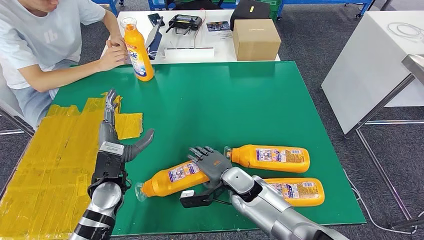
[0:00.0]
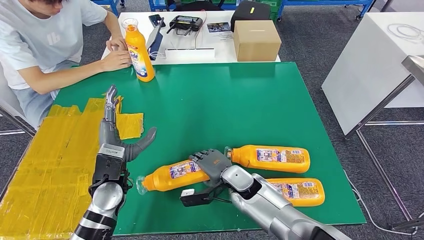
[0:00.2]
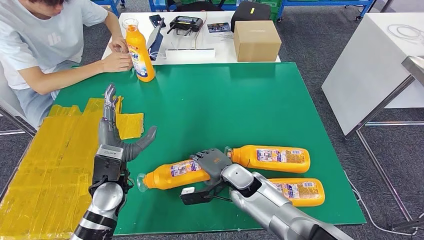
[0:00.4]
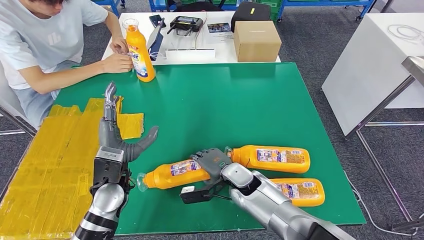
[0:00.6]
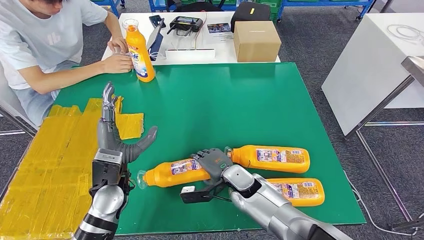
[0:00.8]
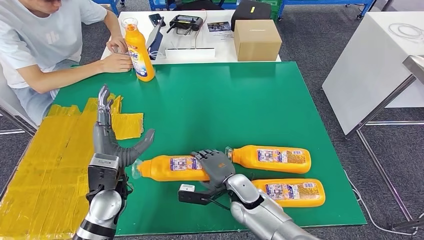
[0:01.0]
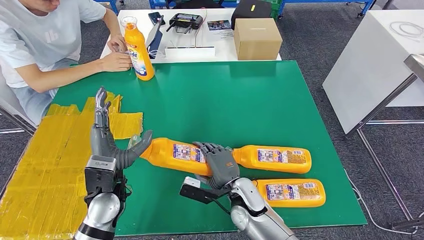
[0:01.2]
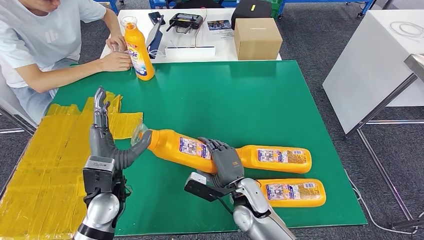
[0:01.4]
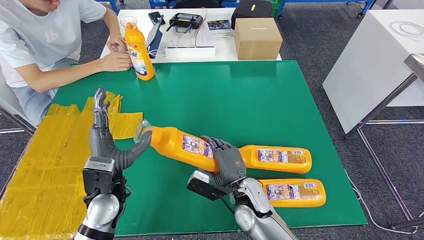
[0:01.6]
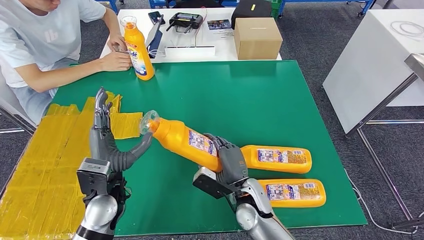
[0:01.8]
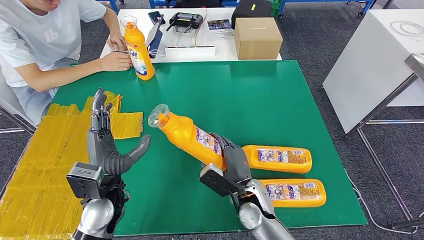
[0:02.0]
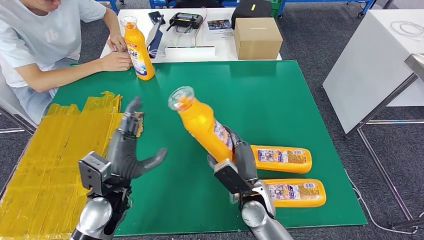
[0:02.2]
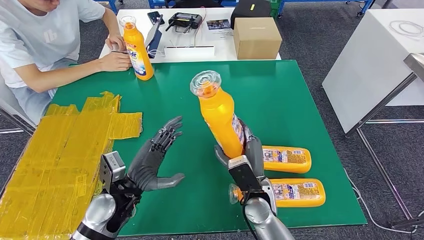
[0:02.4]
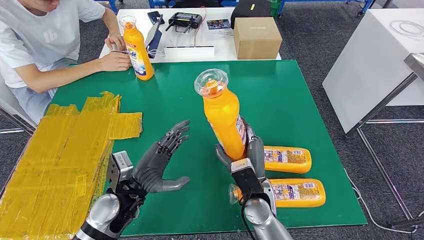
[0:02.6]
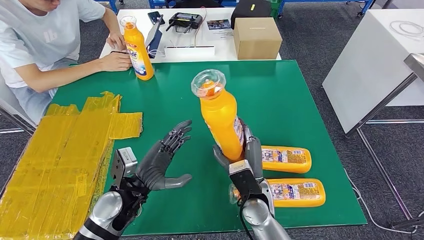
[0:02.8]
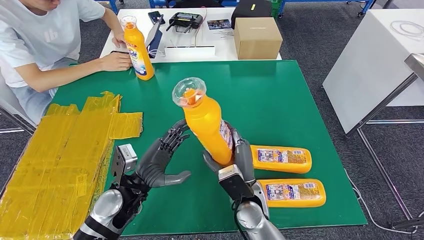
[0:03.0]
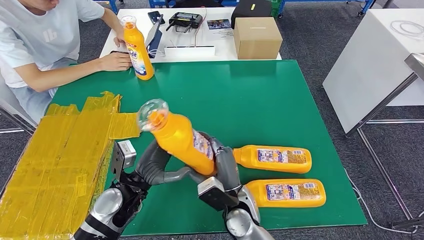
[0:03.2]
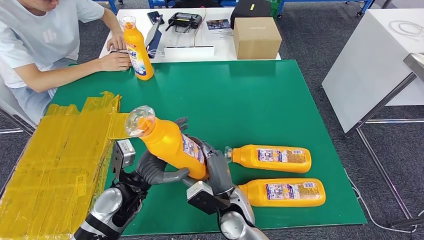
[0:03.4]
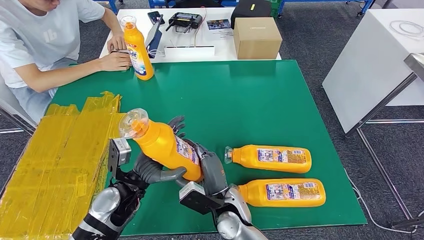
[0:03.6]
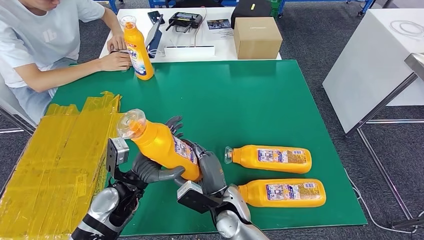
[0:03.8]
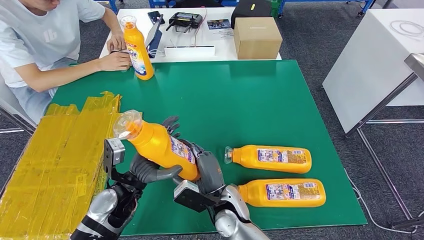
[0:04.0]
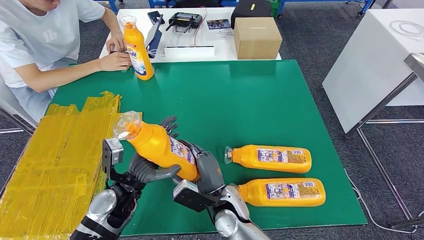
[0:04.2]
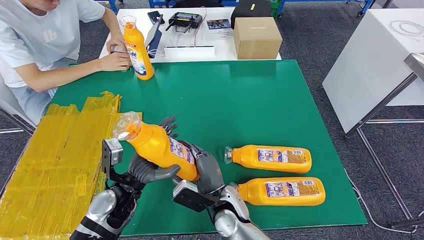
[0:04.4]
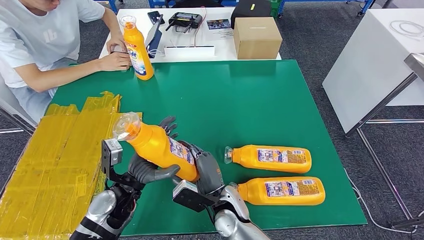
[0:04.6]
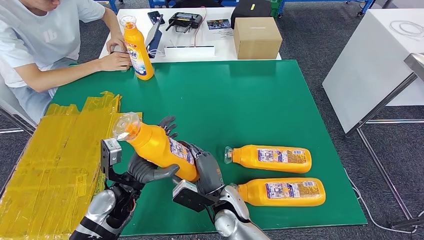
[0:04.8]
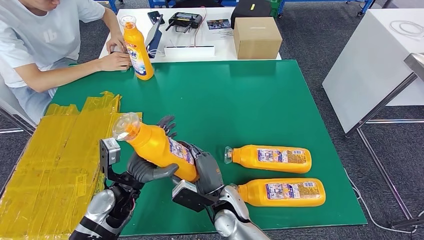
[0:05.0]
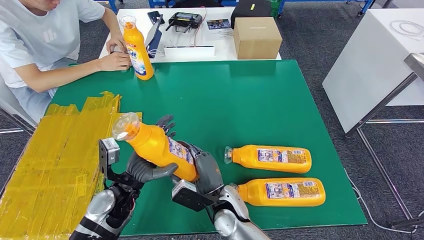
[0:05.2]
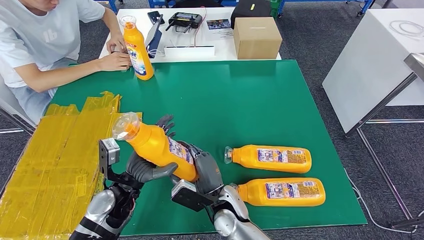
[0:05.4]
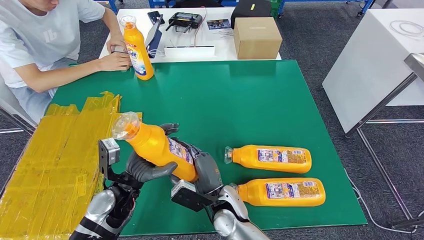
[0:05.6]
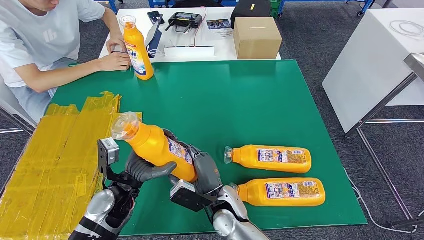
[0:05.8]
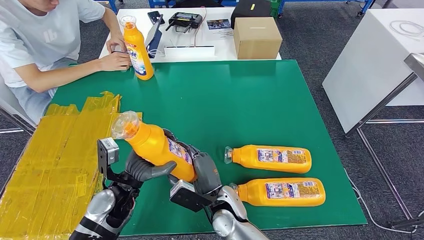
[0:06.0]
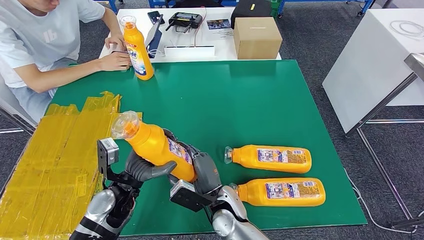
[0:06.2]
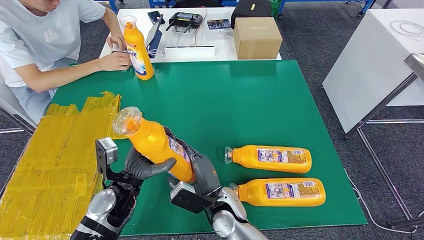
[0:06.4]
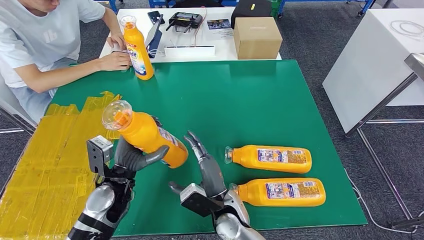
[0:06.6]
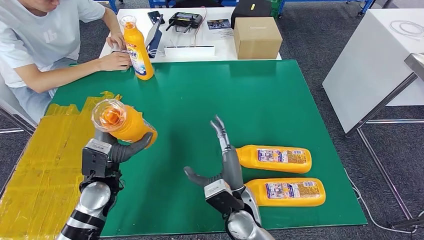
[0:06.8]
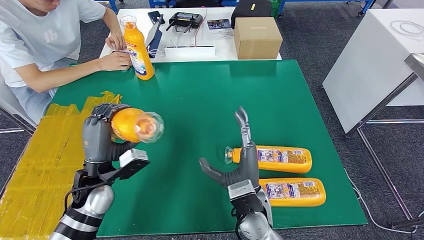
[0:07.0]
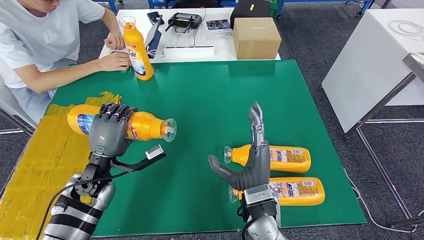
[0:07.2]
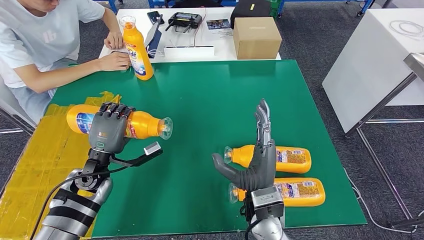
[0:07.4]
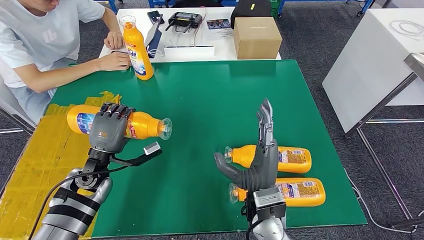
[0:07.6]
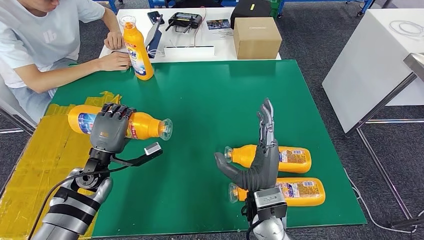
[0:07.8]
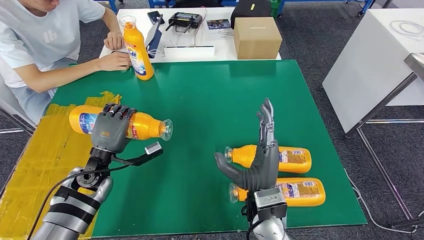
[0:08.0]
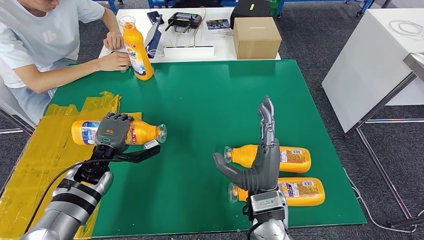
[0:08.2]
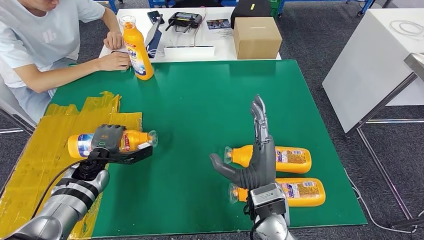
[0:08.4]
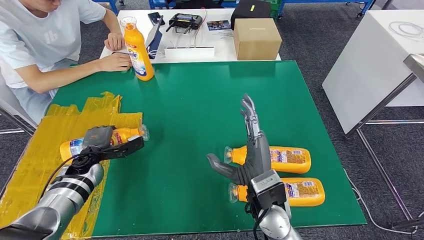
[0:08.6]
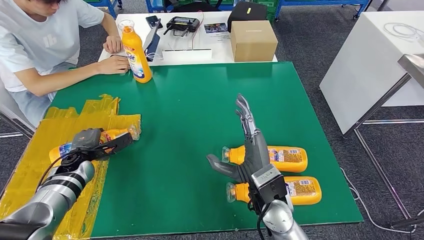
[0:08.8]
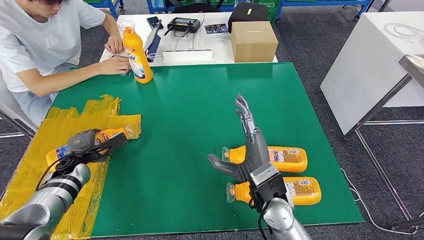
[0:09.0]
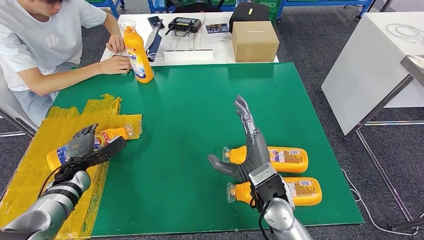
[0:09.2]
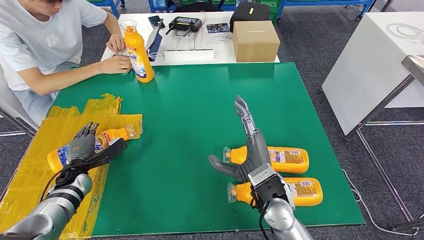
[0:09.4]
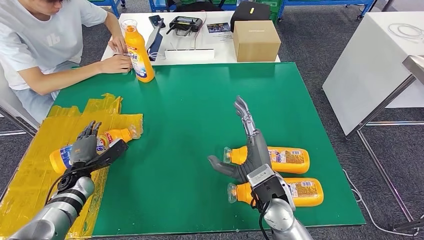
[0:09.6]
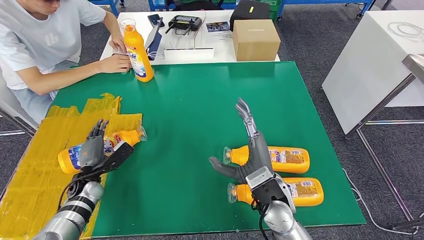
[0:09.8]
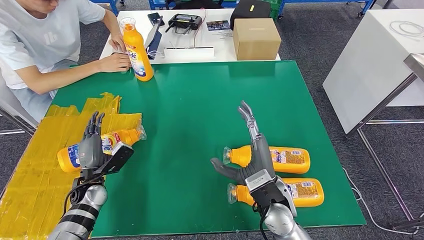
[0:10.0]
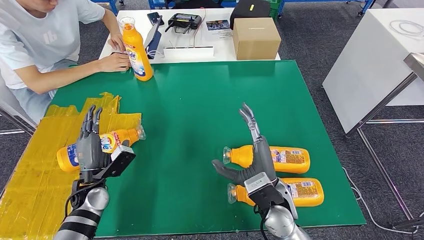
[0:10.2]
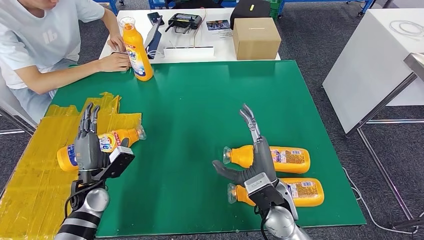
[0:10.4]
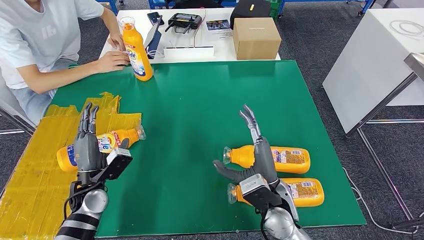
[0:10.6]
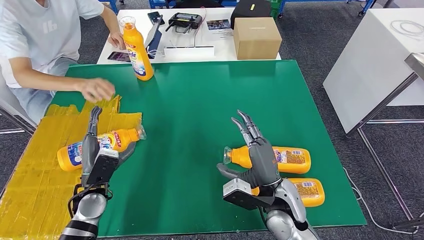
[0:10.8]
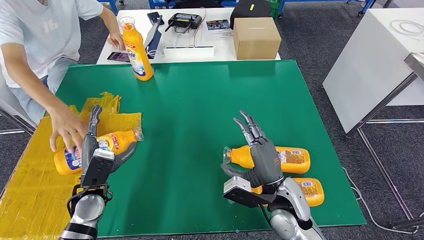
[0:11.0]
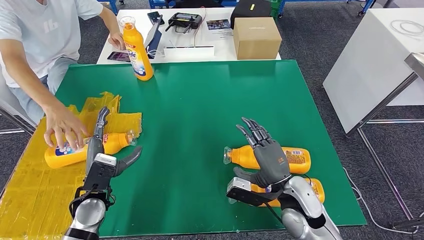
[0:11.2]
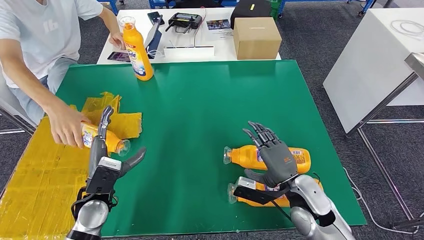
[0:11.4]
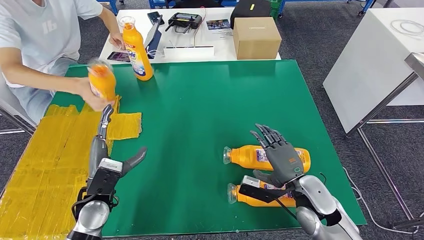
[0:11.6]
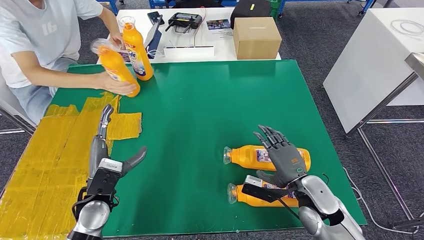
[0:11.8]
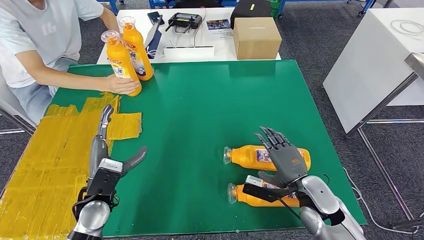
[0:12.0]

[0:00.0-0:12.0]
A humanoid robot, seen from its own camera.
Step, 0:00.0 to 0:02.4: Pick up the fast-moving consumer goods bottle from the table.
Step, 0:02.6 to 0:10.0: Flip the fast-moving consumer goods bottle to the front side.
0:03.0 to 0:04.4: The right hand travels to the left by about 5 cm.
0:04.4 to 0:06.0: Both hands stay put.
0:06.0 to 0:07.6: The right hand is displaced upward and to the right by some 10 cm. The left hand moves to the left and forward, approximately 10 cm.

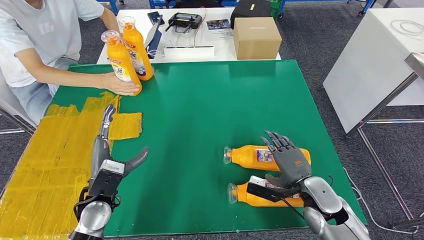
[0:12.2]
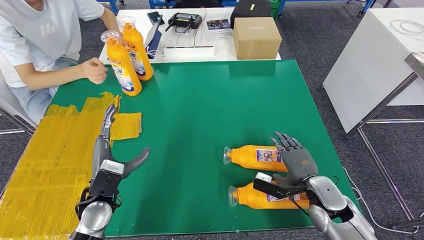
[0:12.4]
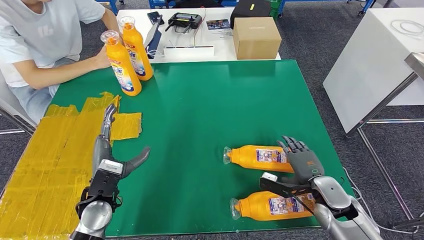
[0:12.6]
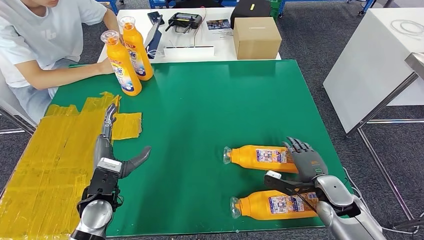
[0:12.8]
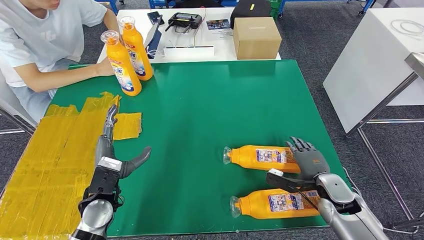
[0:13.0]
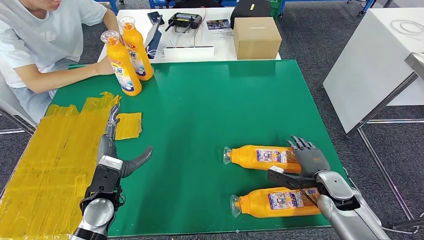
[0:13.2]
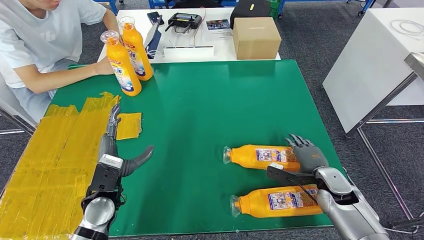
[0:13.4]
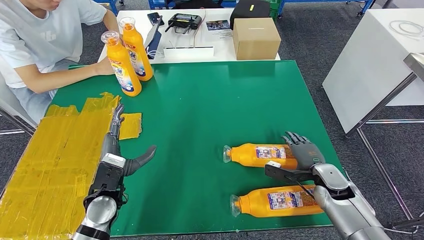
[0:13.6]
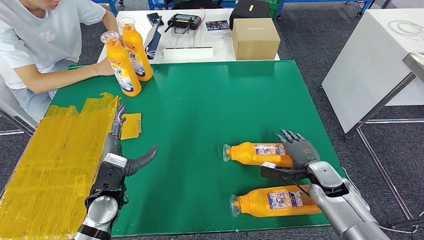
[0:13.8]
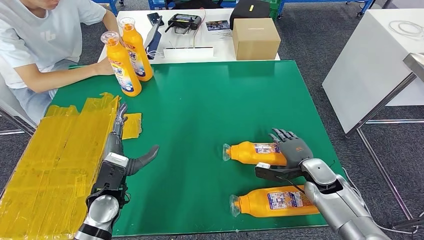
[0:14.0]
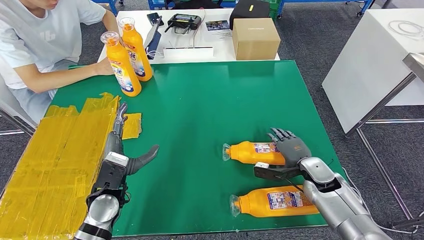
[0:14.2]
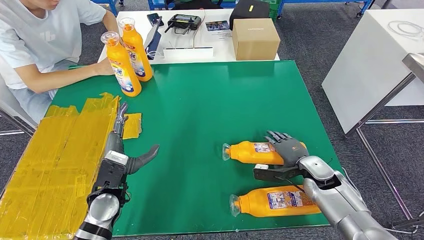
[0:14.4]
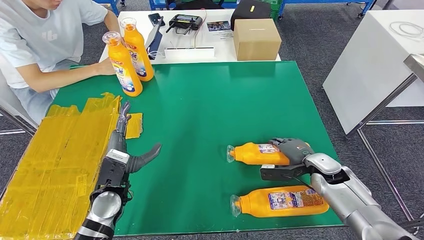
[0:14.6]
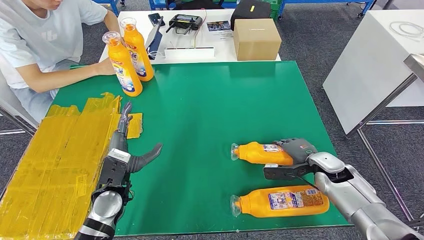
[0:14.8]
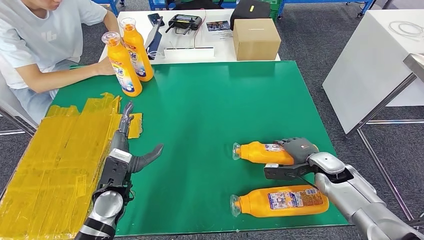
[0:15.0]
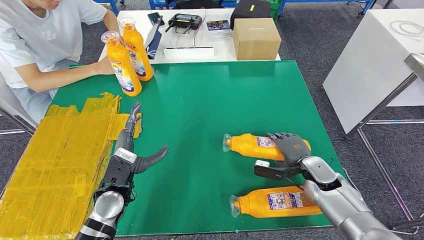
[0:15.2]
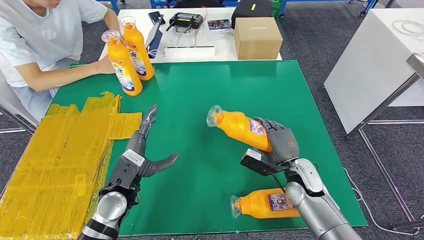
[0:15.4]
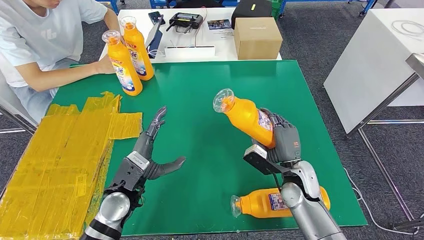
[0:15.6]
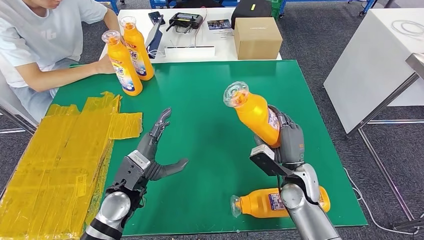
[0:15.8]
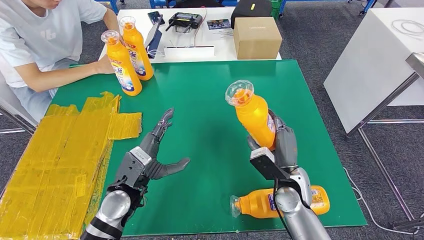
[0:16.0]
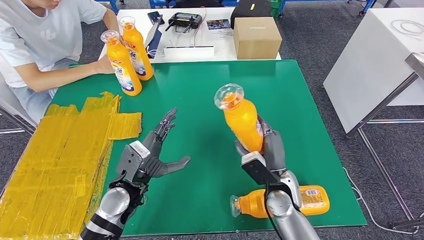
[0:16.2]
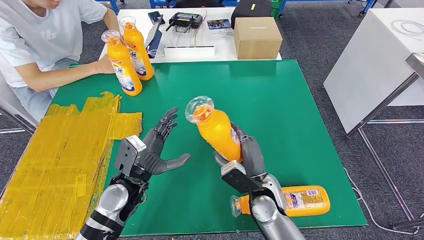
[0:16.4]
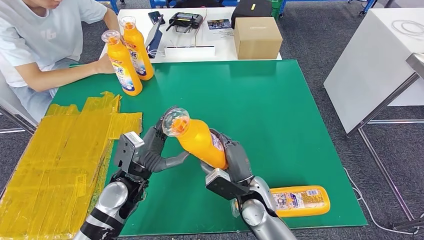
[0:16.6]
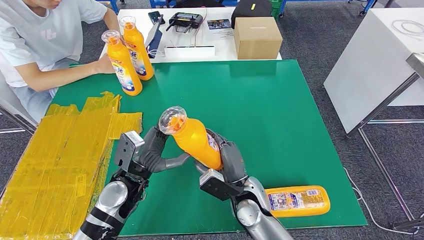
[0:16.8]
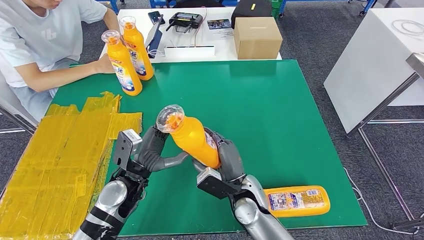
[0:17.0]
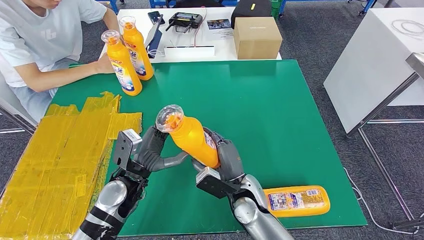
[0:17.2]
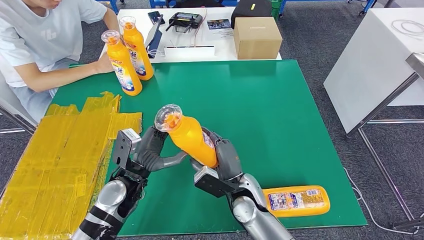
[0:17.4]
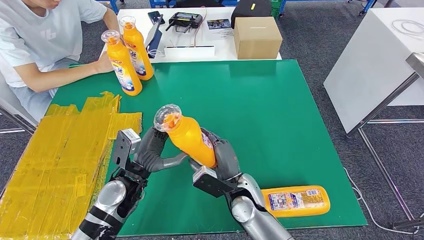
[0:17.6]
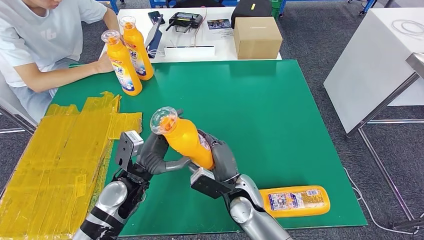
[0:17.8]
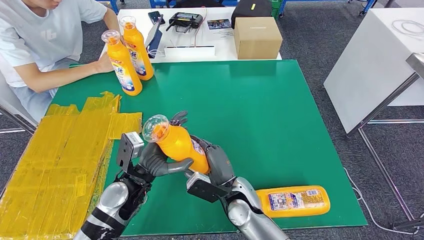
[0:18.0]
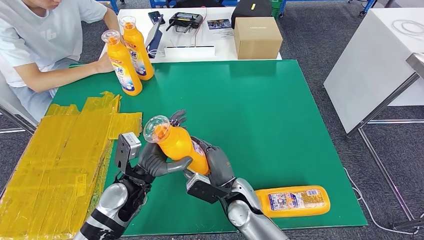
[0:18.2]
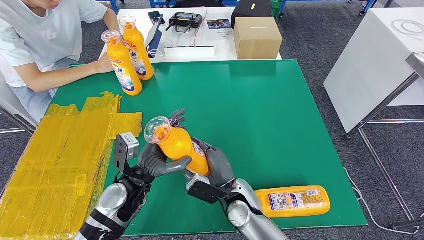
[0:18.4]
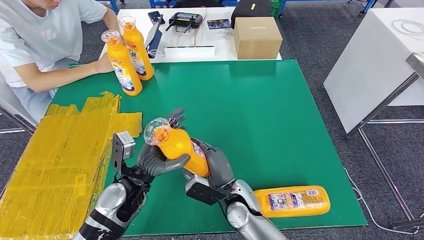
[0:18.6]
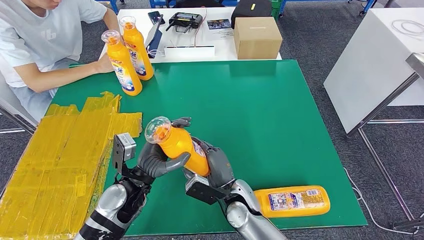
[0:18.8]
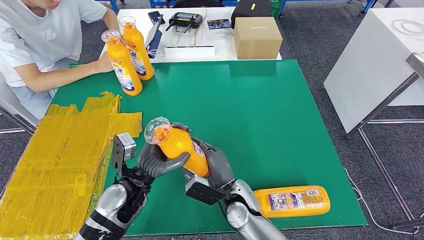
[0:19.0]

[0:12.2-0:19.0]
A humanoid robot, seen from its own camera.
Step, 0:12.2 to 0:16.0: Pick up the fast-moving consumer goods bottle from the table.
0:12.2 to 0:13.6: The right hand heads to the right and forward, covering roughly 10 cm.
0:13.6 to 0:15.0: There are only small adjustments of the hands.
0:16.2 to 0:17.6: The right hand travels to the left by about 10 cm.
0:17.6 to 0:19.0: The hands make only small movements.
